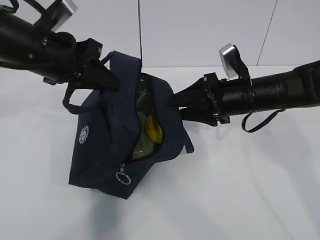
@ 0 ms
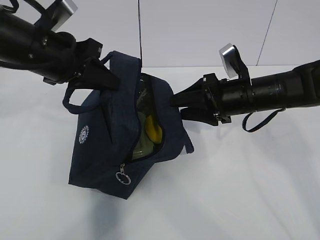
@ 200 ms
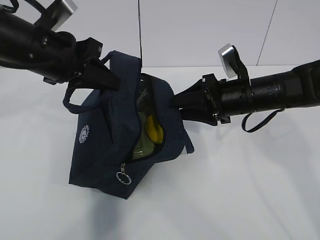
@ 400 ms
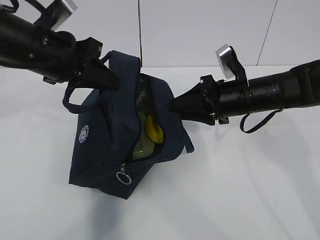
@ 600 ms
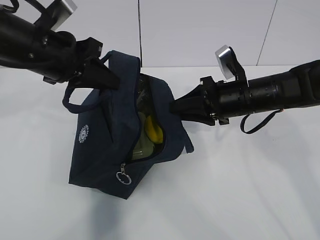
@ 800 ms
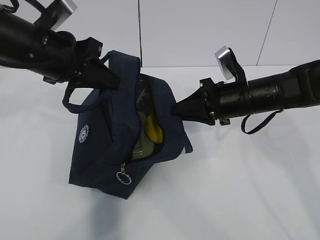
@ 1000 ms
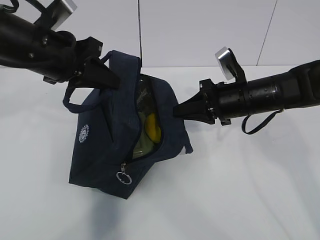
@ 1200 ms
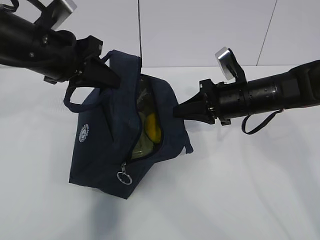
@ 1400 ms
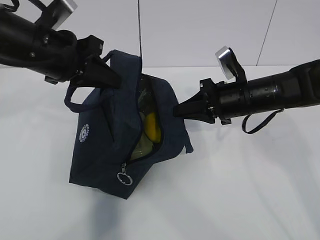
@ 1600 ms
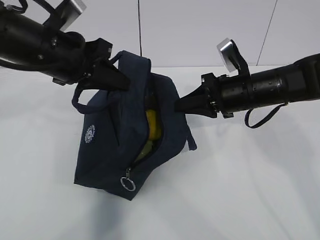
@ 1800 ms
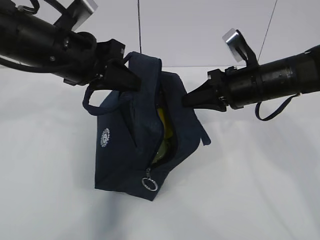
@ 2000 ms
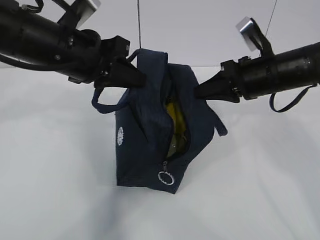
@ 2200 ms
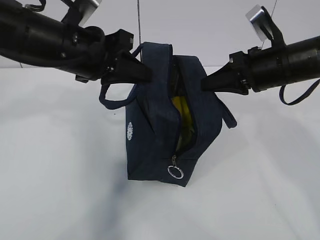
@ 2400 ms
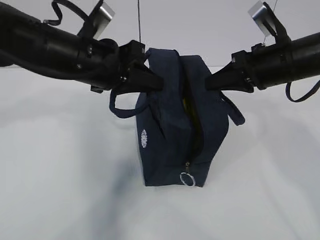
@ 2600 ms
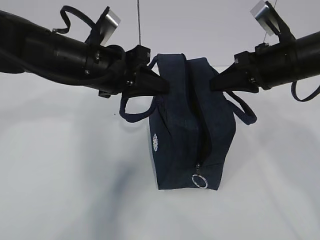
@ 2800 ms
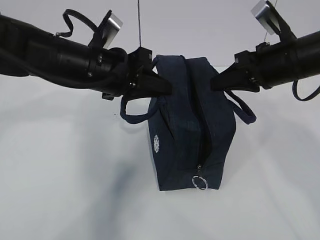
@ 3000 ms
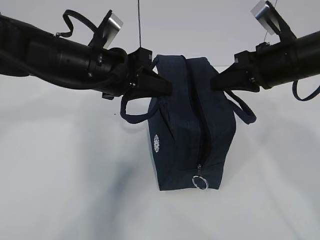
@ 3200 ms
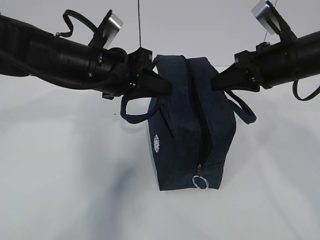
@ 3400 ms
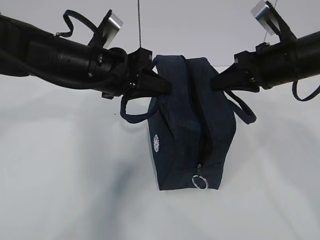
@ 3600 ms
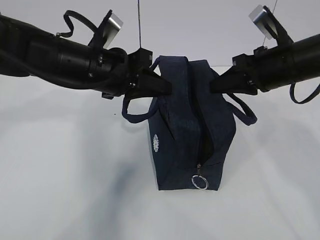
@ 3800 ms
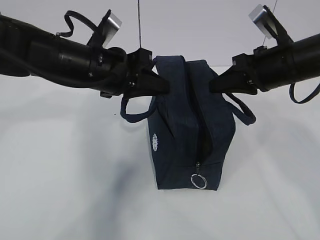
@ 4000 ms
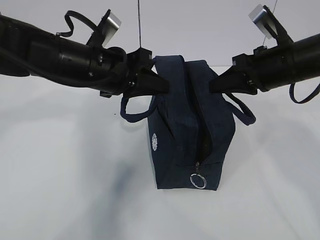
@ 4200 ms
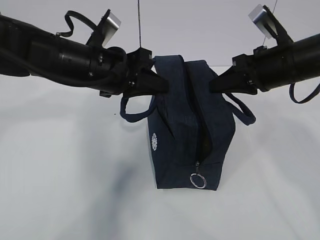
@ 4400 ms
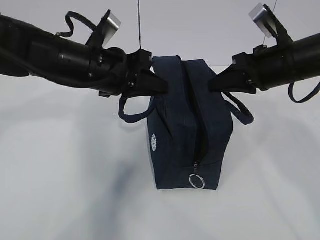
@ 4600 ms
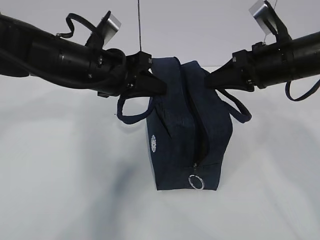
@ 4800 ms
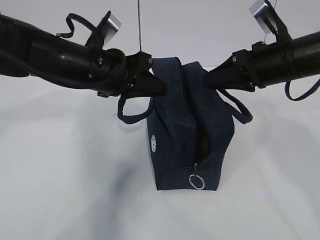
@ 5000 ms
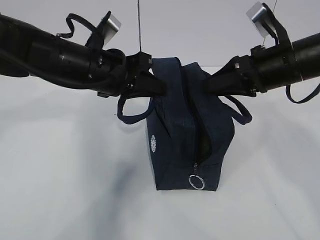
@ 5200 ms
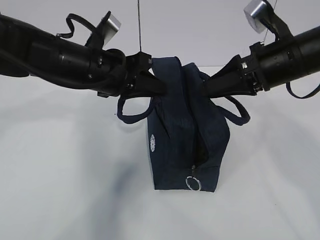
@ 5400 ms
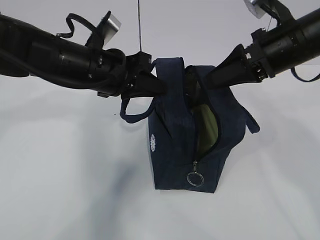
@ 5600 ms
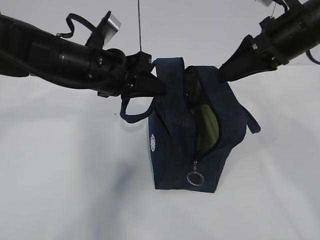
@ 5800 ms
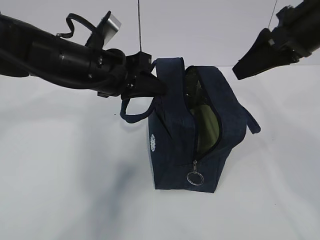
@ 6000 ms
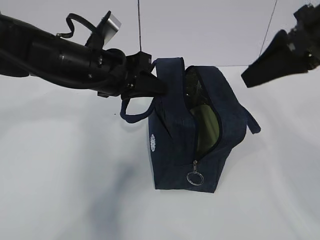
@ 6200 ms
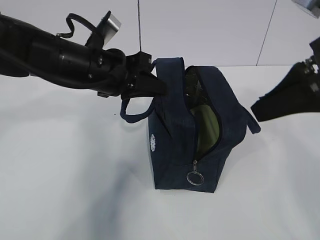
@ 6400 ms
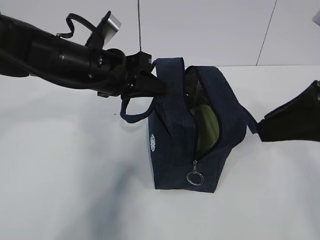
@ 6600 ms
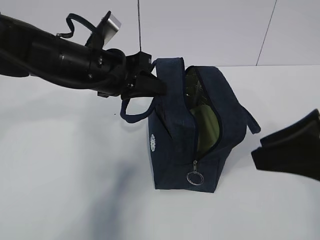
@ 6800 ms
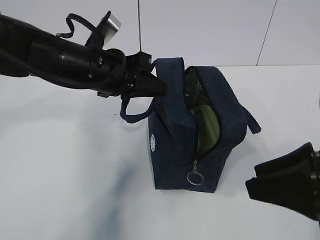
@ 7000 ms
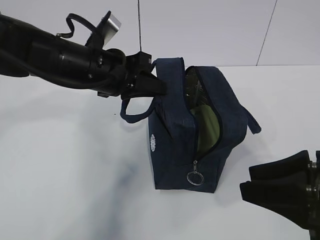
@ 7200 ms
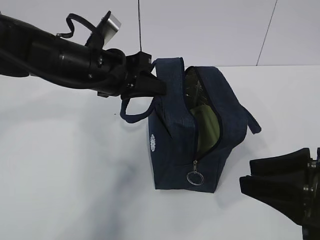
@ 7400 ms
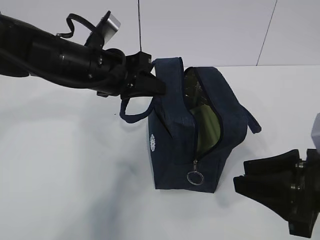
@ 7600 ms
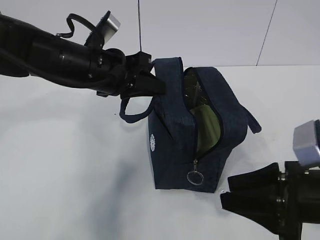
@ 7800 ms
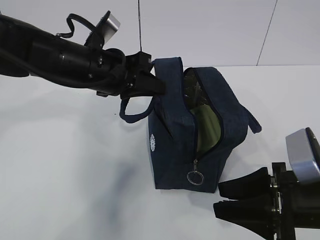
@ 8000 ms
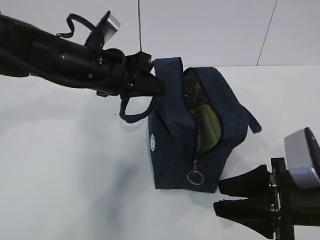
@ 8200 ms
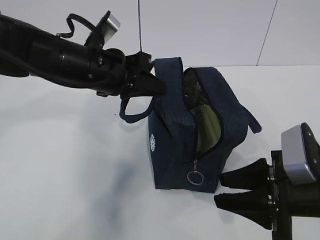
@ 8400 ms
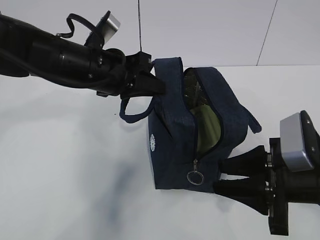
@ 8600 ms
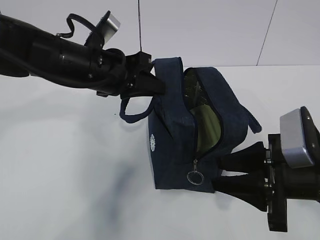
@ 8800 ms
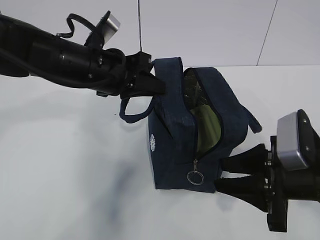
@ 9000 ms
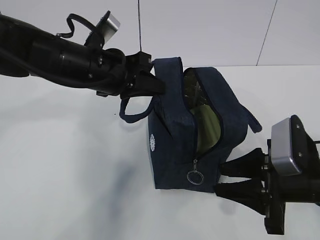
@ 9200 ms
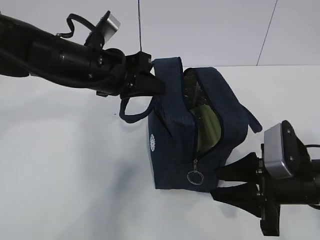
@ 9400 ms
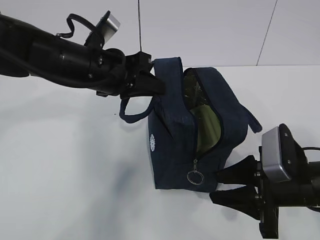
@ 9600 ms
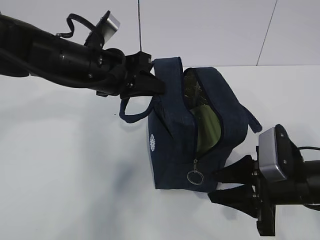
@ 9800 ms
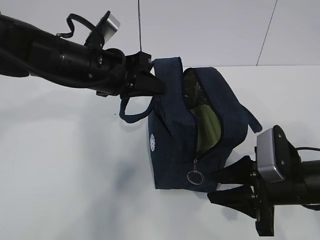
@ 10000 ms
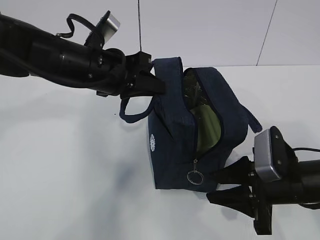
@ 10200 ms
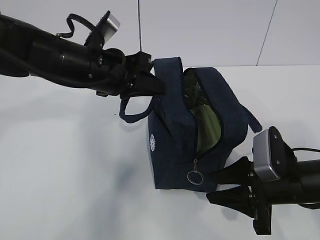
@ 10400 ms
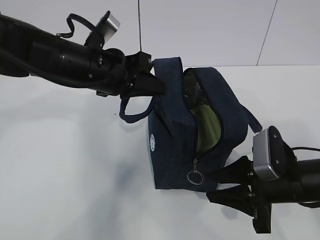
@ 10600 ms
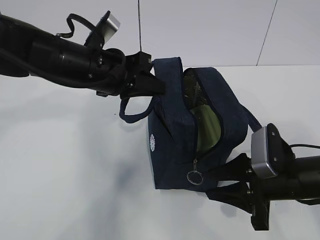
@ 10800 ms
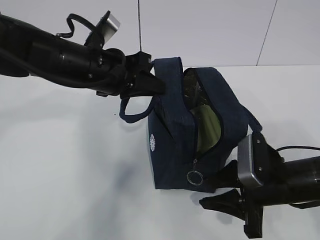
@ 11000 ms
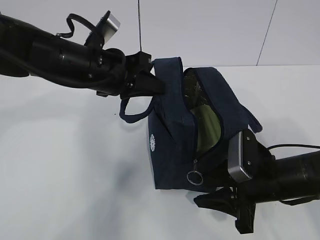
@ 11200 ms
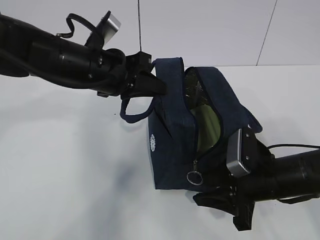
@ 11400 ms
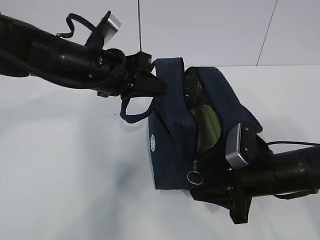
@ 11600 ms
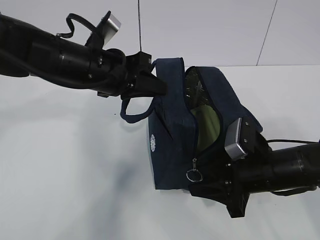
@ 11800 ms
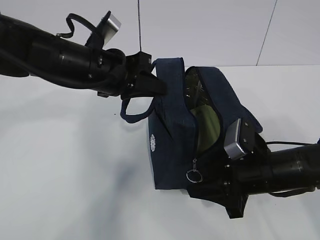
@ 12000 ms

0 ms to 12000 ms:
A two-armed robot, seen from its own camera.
0 ms to 1600 ms: The right gripper closes up.
1600 ms to 3000 ms: The right gripper shifts about 10 cm upward; the left gripper travels to the right by roughly 5 cm.
3000 ms to 4400 ms: Both grippers stay about where they are.
4400 ms to 6000 ms: The right gripper goes about 10 cm upward, and opens.
6000 ms to 7600 ms: The right gripper travels backward and downward by about 20 cm.
7600 ms to 9000 ms: The right gripper shifts by roughly 5 cm.
9000 ms to 10400 ms: The right gripper moves some 5 cm.
10400 ms to 12000 ms: There are only small adjustments of the grippers.

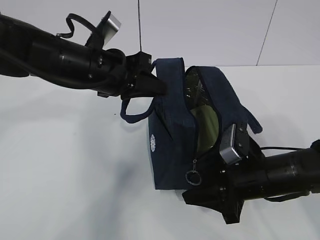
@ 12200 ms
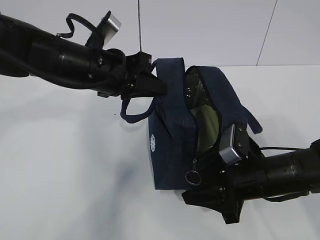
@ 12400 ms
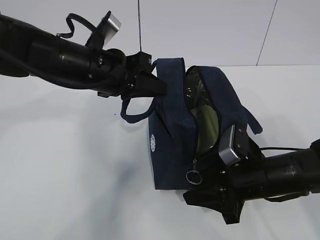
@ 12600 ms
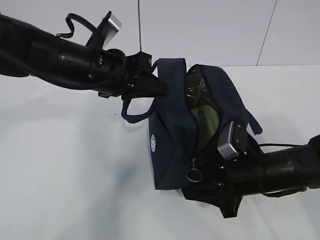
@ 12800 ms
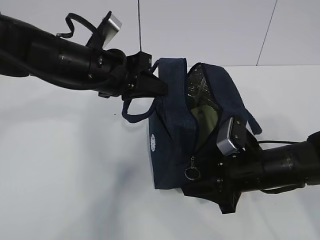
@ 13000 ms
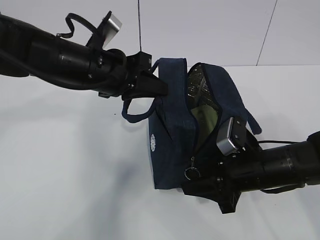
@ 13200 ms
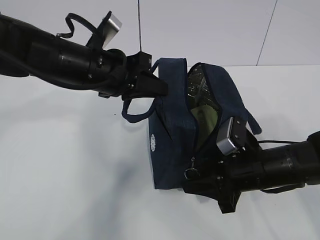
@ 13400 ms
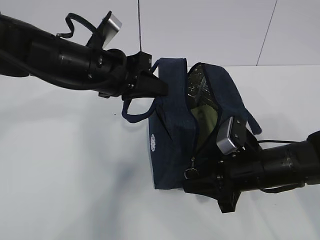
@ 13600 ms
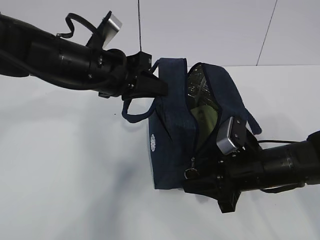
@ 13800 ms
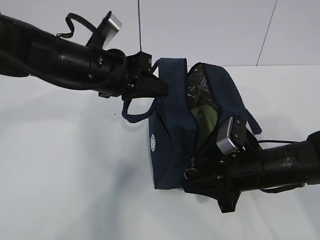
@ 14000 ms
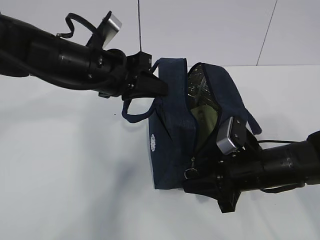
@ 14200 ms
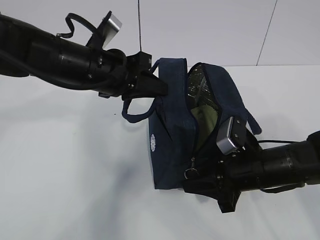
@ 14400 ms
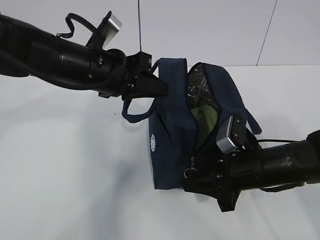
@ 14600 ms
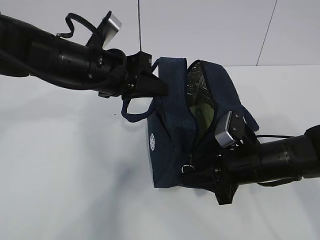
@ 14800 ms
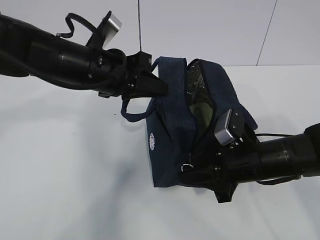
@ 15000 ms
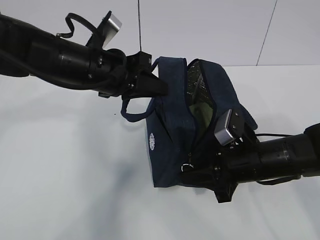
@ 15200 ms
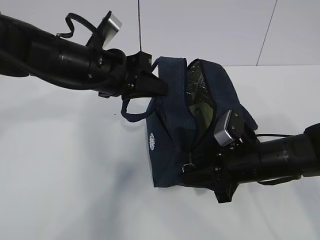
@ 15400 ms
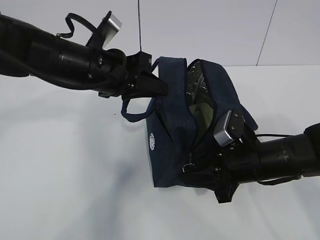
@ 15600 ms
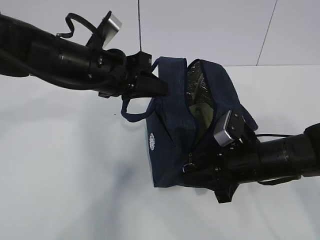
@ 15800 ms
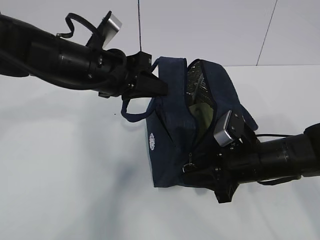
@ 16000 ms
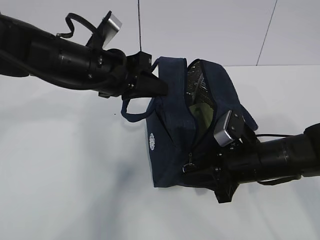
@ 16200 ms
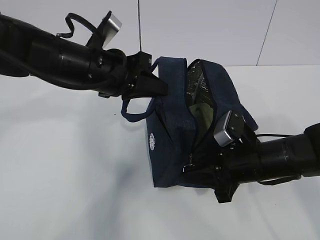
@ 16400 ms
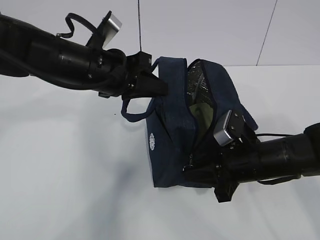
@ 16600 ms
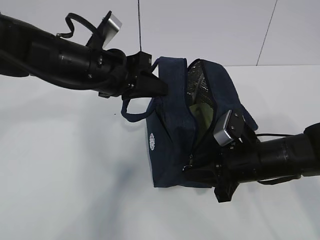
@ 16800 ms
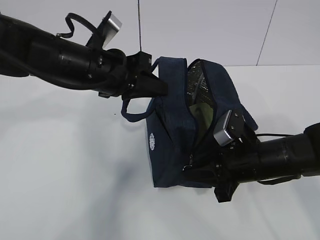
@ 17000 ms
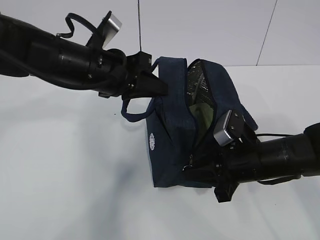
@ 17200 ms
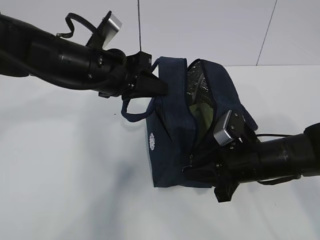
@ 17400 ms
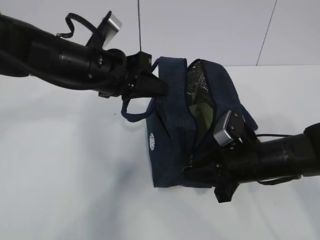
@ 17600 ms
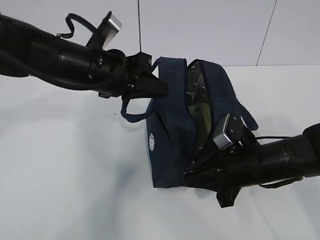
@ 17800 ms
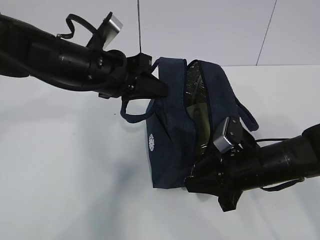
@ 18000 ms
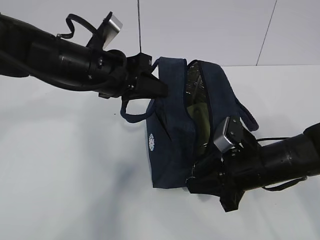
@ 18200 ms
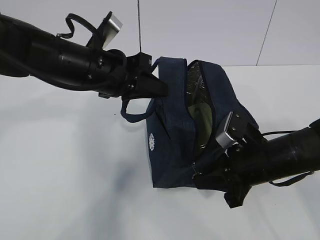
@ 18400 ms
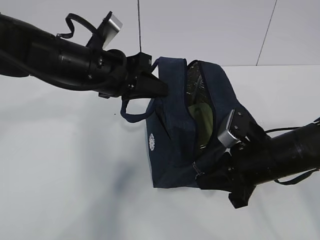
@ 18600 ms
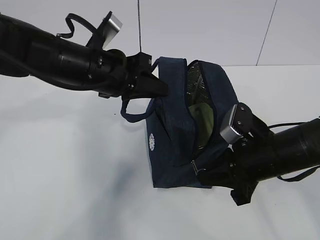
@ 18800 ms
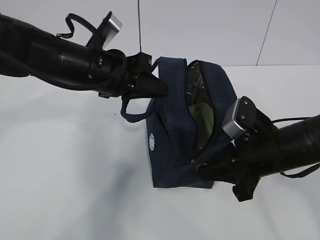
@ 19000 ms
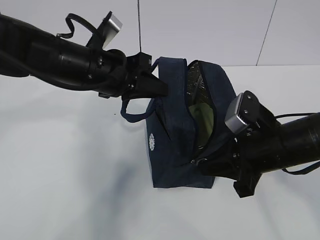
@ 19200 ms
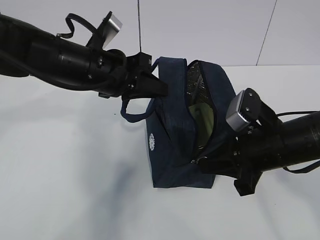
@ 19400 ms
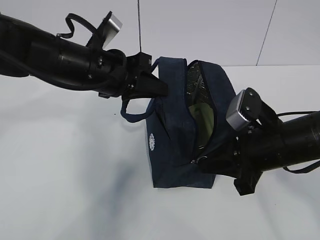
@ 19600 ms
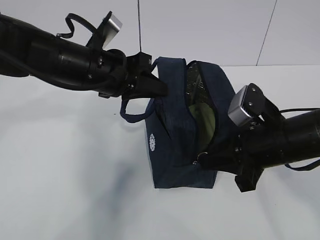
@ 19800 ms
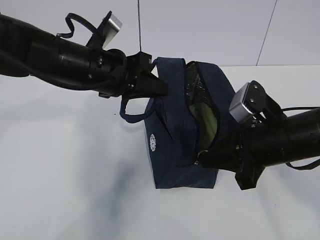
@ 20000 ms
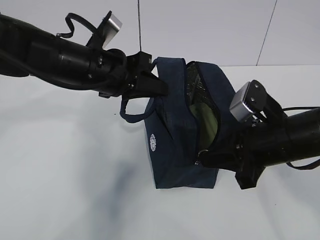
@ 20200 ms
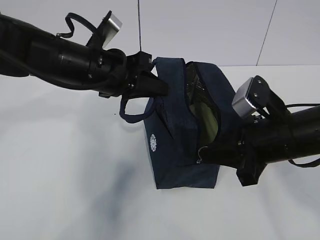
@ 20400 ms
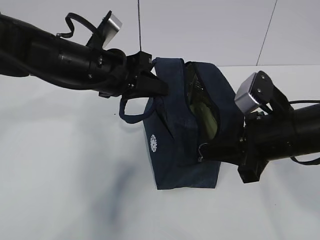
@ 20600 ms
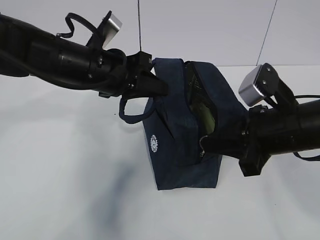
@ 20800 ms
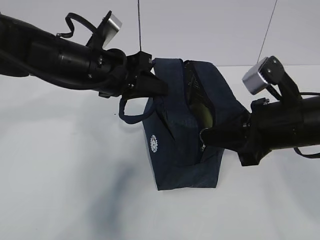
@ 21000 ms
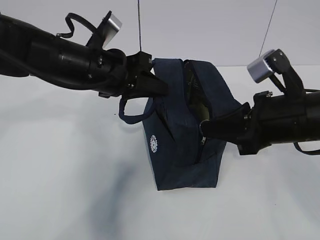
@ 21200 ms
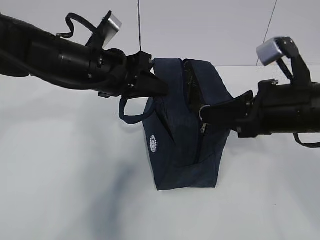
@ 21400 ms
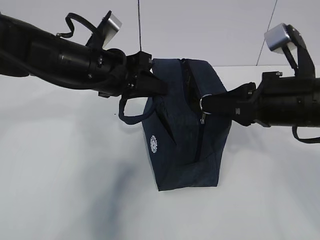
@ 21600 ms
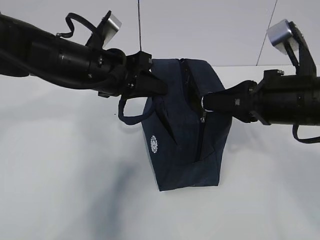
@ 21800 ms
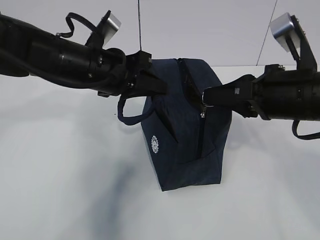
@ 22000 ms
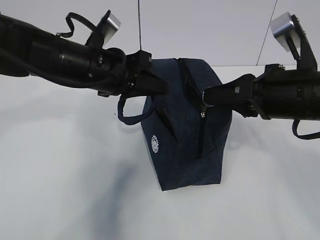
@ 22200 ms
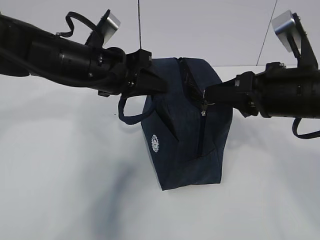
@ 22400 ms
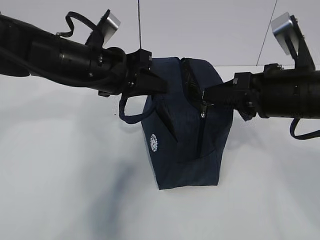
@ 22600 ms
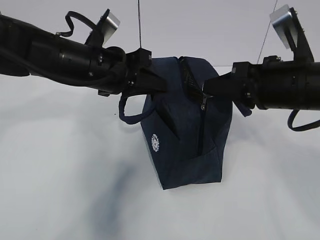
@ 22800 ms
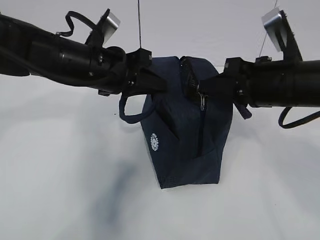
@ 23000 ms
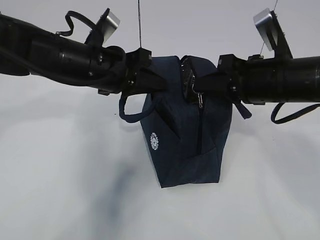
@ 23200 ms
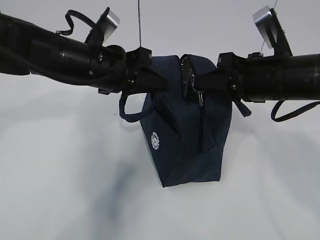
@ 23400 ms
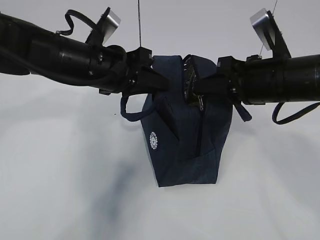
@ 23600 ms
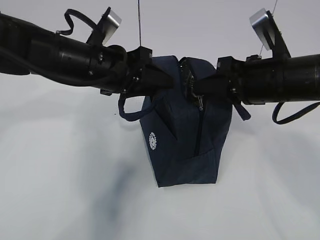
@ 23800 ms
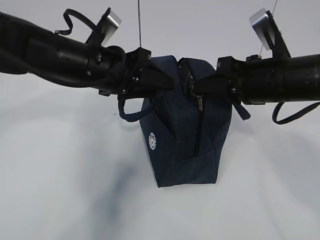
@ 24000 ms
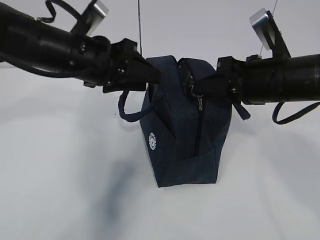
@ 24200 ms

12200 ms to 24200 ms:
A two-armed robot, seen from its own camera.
Step, 12200 ms to 19000 ms: Pull the zipper with your right hand.
12200 ms to 13800 ms: The two grippers keep their place.
13800 ms to 16600 ms: Neither gripper changes place.
16600 ms to 18200 ms: The grippers make only small movements.
18200 ms to 19800 ms: The right gripper goes roughly 5 cm upward.
19800 ms to 21200 ms: There are only small adjustments of the grippers.
22600 ms to 24200 ms: The left gripper opens up.
